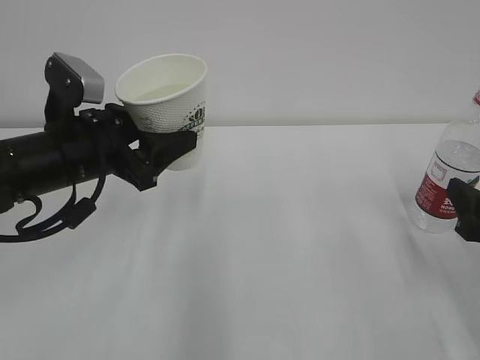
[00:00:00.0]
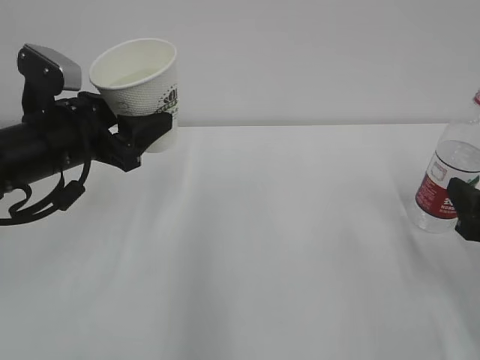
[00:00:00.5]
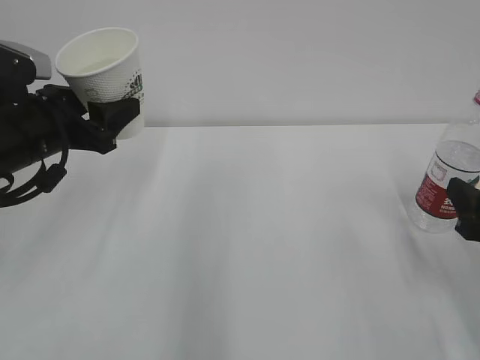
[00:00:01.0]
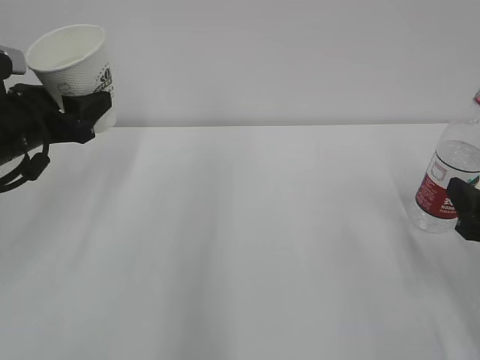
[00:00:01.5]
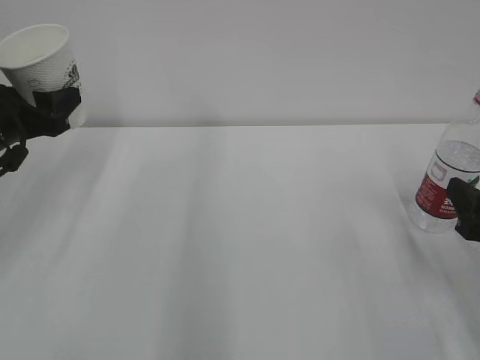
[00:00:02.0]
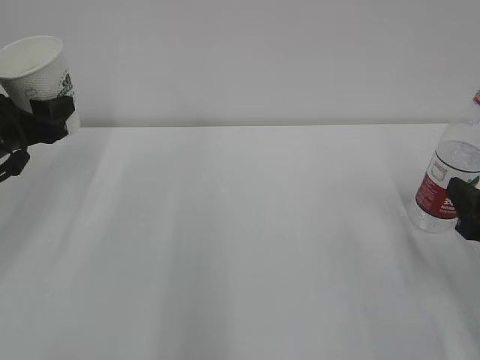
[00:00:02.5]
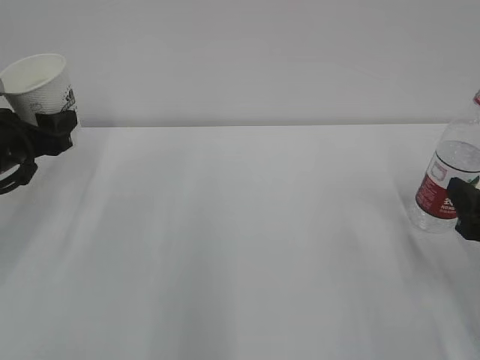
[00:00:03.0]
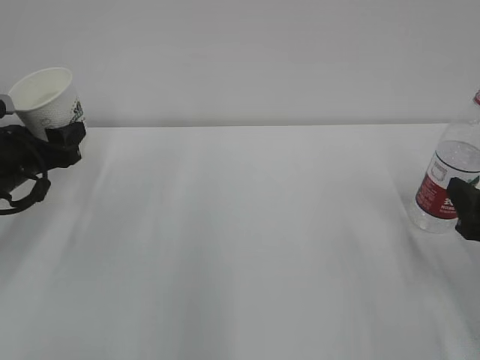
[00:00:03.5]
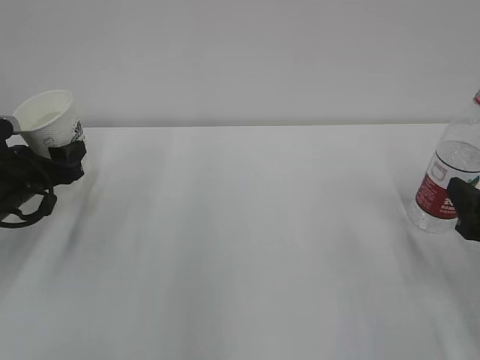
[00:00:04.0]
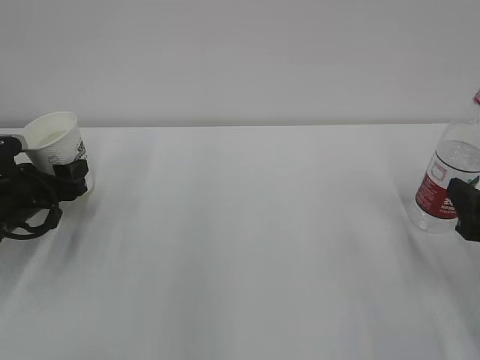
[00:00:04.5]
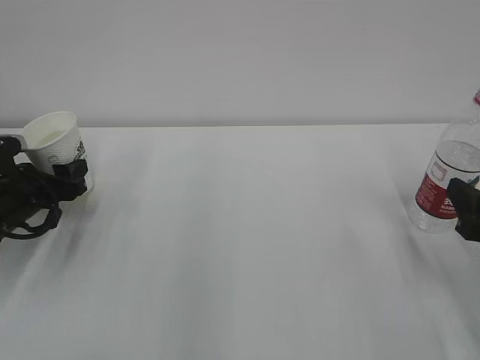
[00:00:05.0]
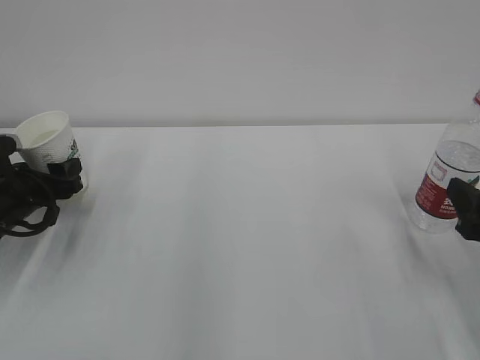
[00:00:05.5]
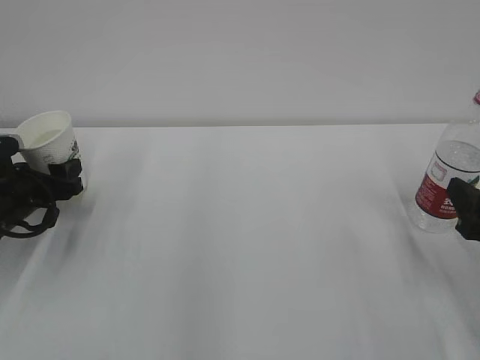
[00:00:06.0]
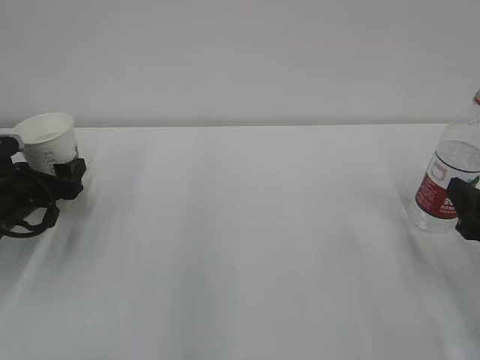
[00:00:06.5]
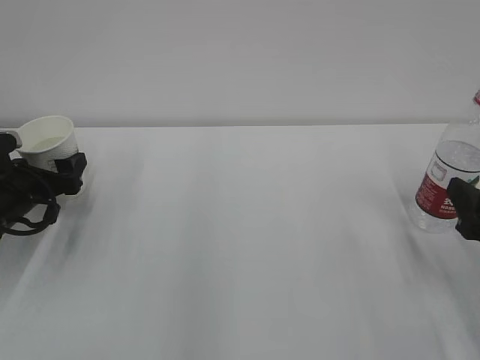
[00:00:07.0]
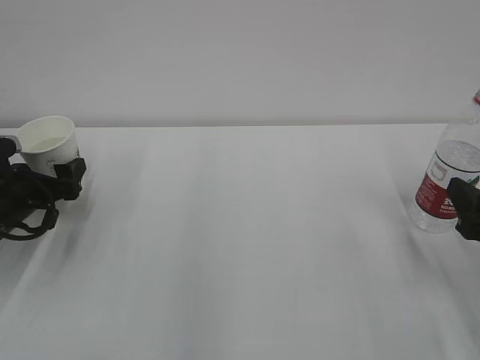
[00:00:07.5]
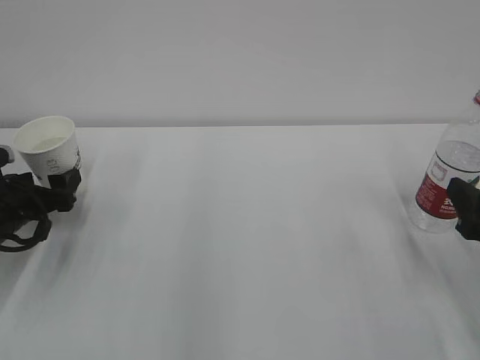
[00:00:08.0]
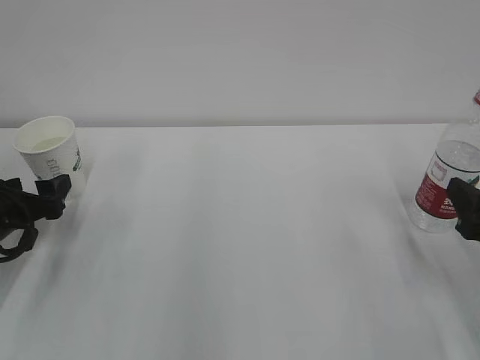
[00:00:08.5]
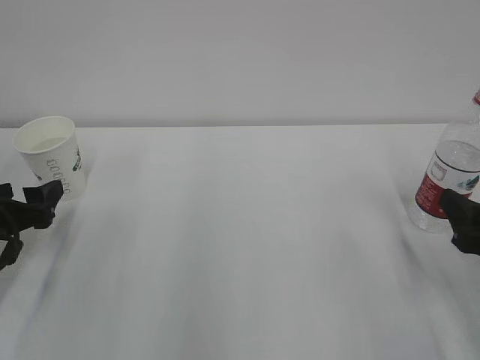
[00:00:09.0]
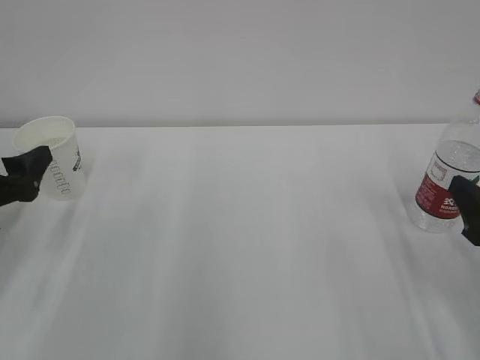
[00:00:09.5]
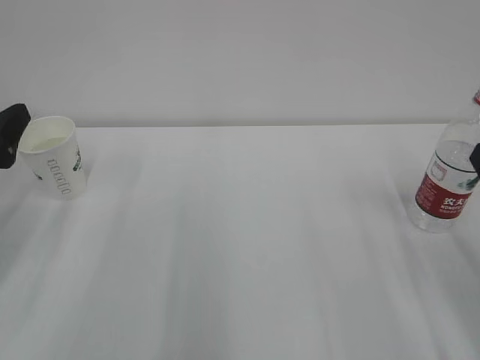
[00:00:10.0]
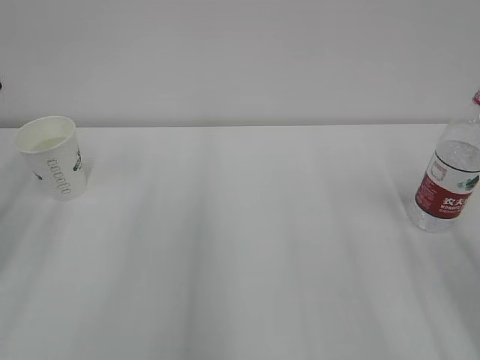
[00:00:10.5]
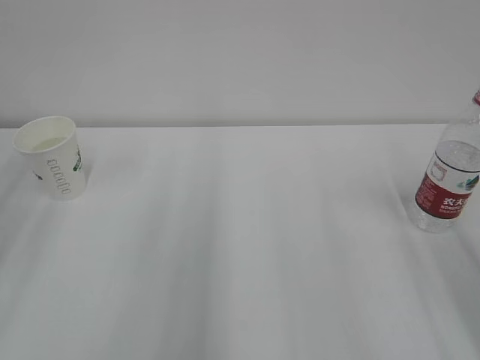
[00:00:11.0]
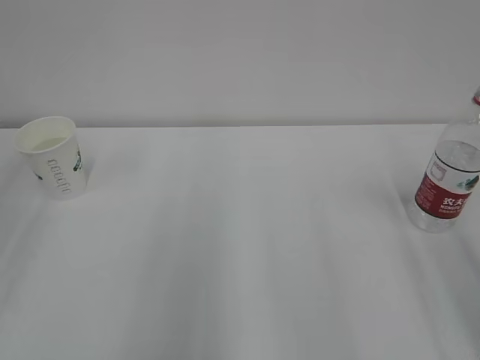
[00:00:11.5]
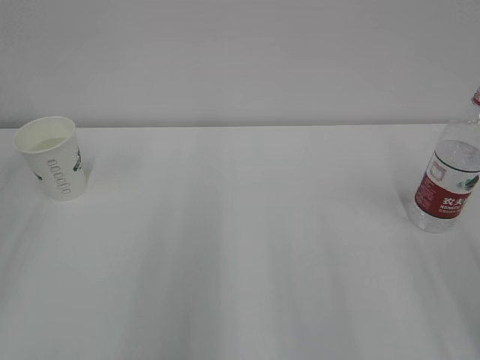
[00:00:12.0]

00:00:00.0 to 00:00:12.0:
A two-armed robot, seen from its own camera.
00:00:00.0 to 00:00:02.0: The left gripper shifts some 10 cm to the left.
00:00:02.0 to 00:00:04.0: The left gripper heads downward, covering some 10 cm.
00:00:04.0 to 00:00:06.0: The grippers stay close to where they were, moving slightly.
00:00:06.0 to 00:00:08.0: The left gripper opens.
00:00:08.0 to 00:00:10.0: The right gripper moves roughly 5 cm. The left gripper travels upward and backward by about 15 cm.
00:00:10.0 to 00:00:12.0: The left gripper goes some 15 cm backward and upward.
